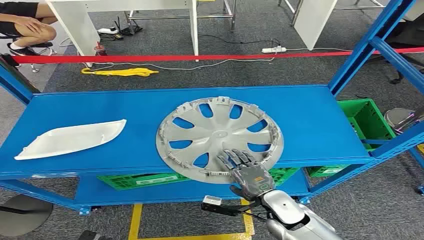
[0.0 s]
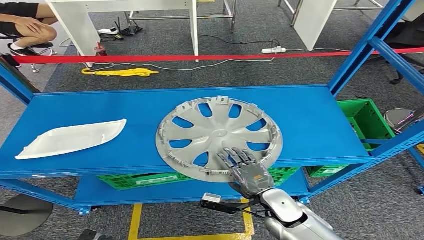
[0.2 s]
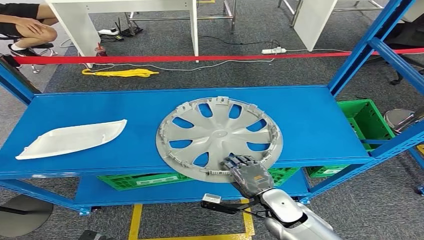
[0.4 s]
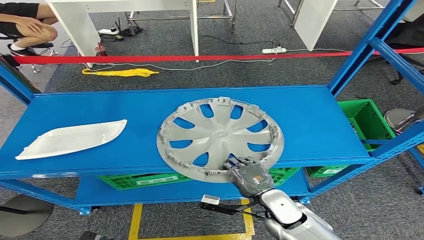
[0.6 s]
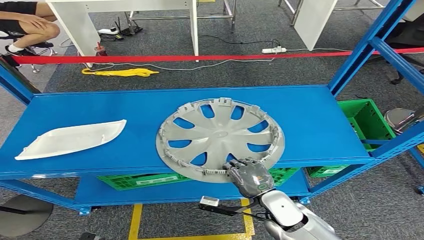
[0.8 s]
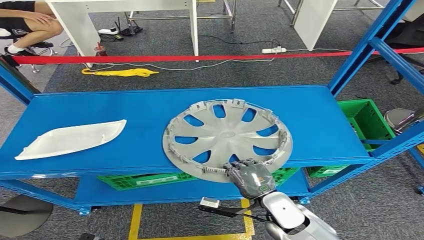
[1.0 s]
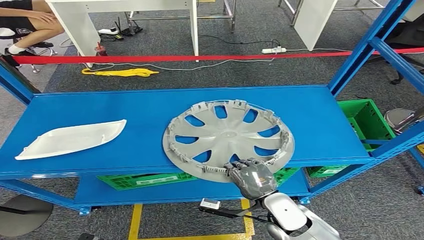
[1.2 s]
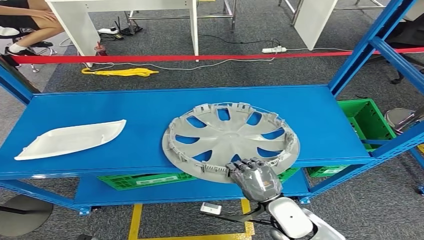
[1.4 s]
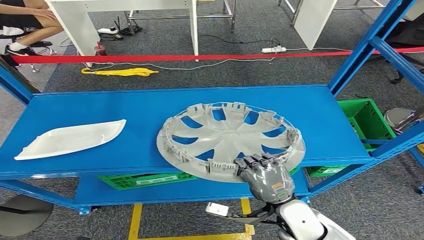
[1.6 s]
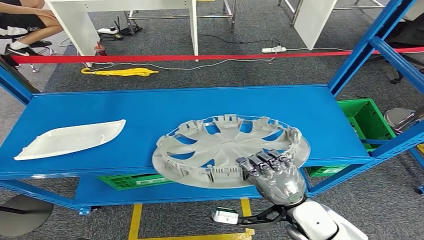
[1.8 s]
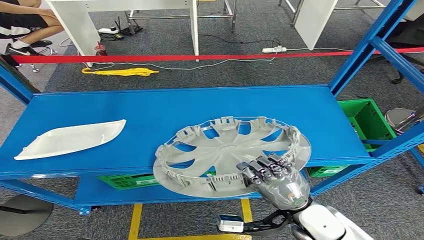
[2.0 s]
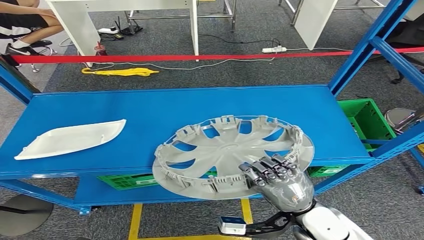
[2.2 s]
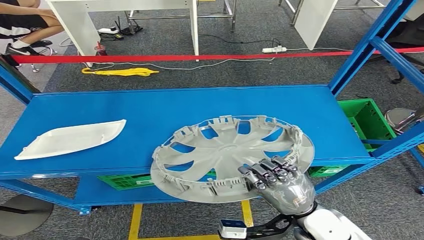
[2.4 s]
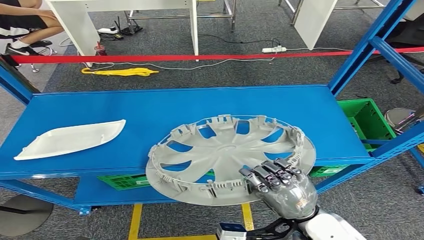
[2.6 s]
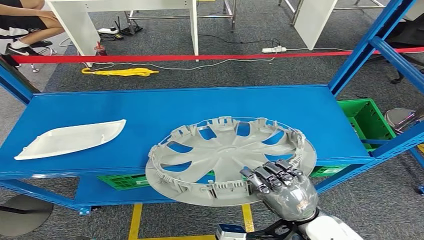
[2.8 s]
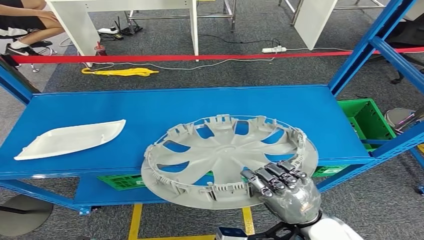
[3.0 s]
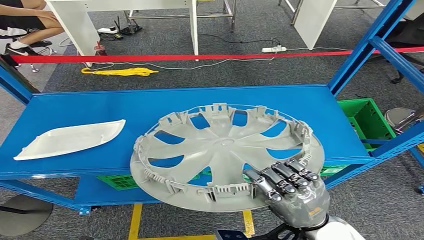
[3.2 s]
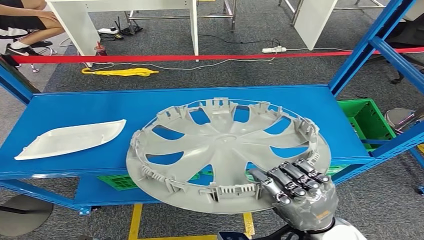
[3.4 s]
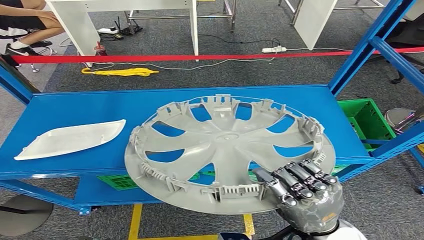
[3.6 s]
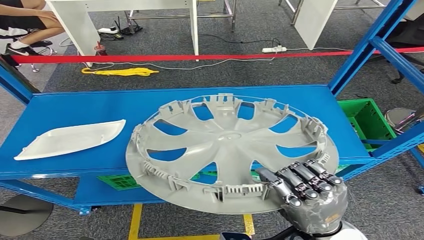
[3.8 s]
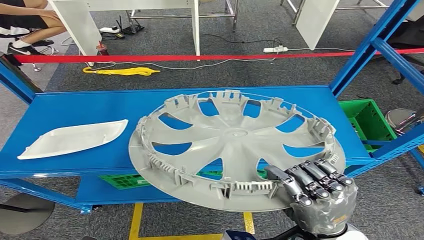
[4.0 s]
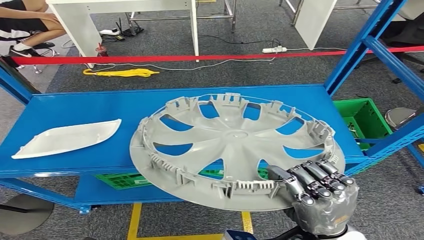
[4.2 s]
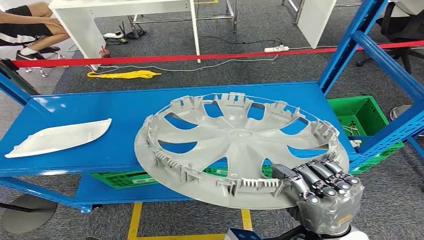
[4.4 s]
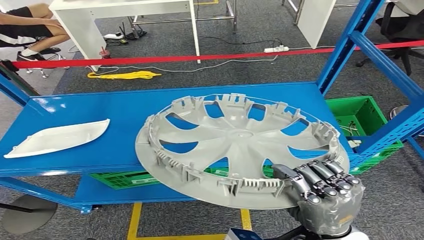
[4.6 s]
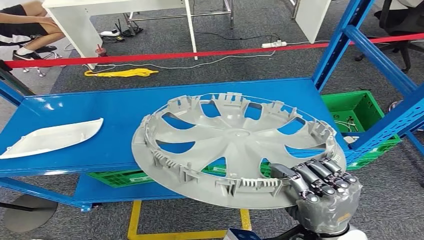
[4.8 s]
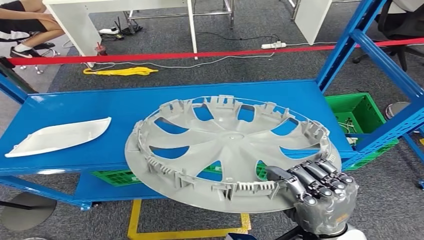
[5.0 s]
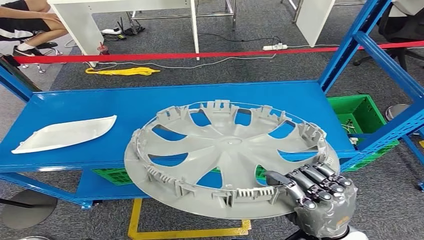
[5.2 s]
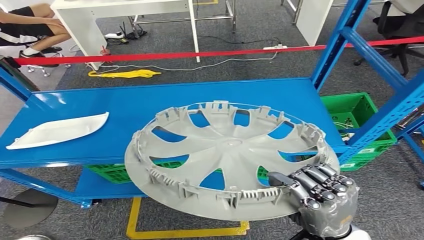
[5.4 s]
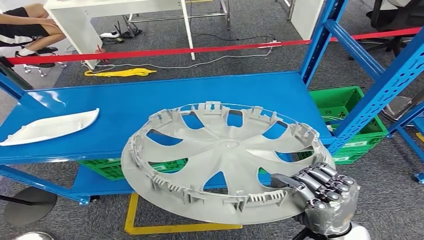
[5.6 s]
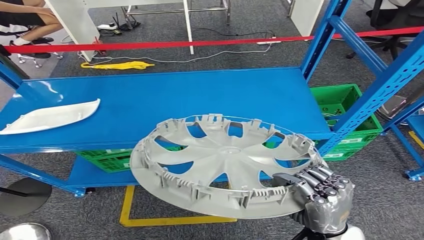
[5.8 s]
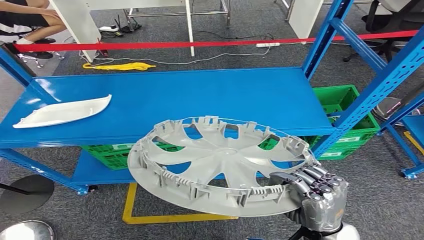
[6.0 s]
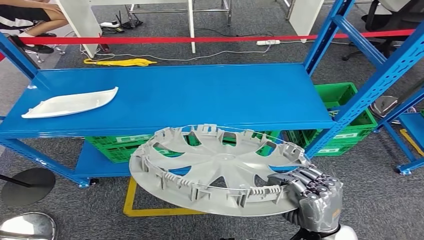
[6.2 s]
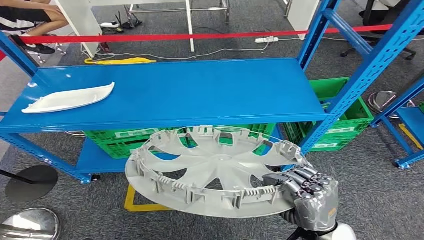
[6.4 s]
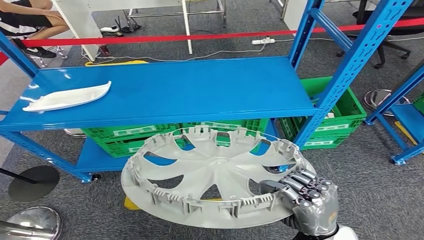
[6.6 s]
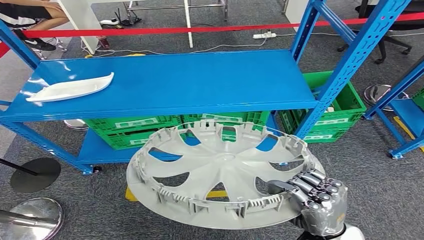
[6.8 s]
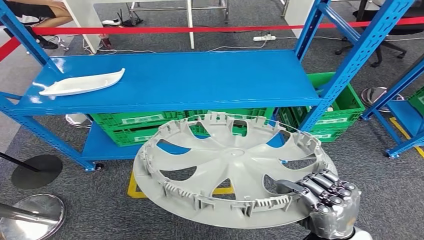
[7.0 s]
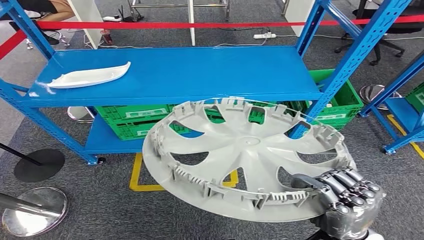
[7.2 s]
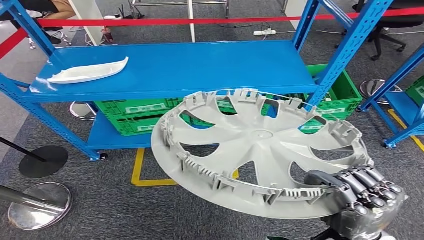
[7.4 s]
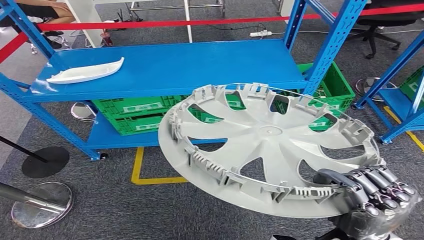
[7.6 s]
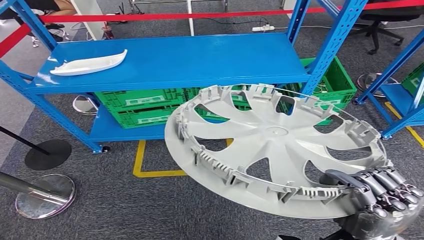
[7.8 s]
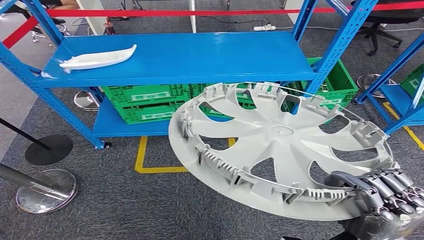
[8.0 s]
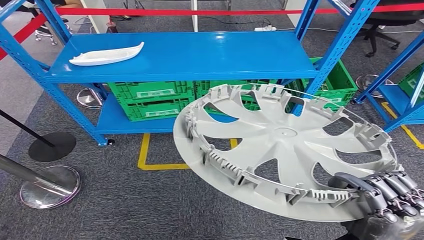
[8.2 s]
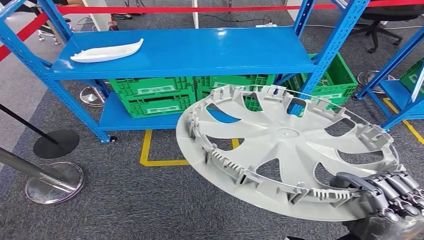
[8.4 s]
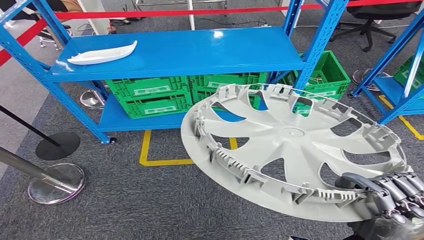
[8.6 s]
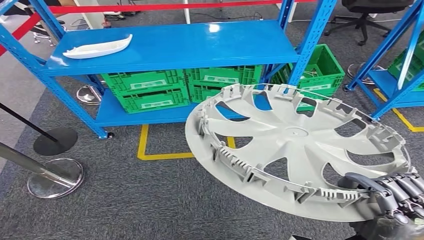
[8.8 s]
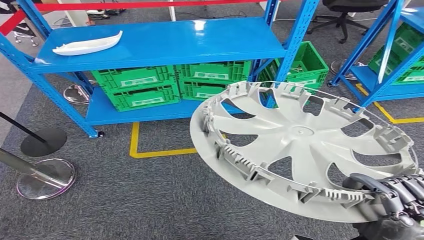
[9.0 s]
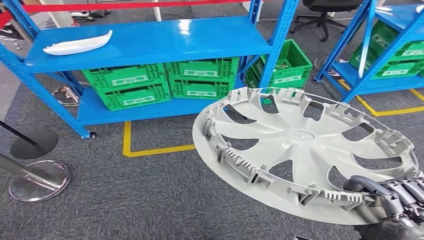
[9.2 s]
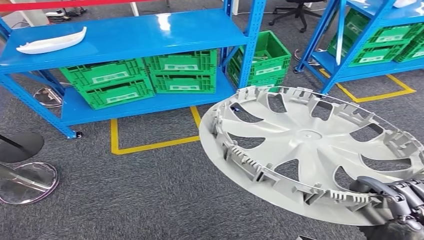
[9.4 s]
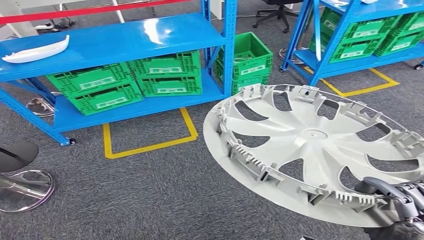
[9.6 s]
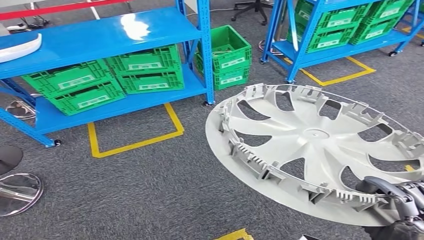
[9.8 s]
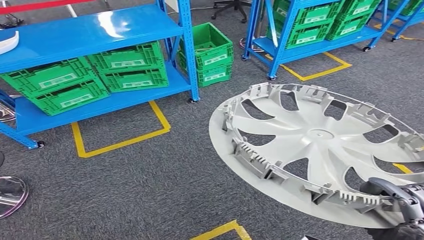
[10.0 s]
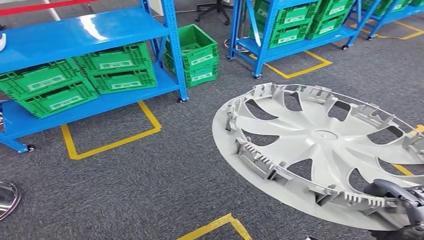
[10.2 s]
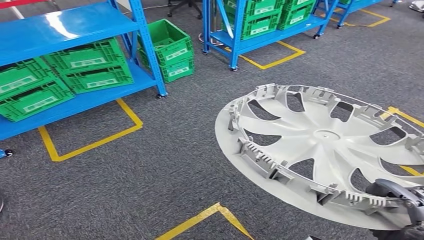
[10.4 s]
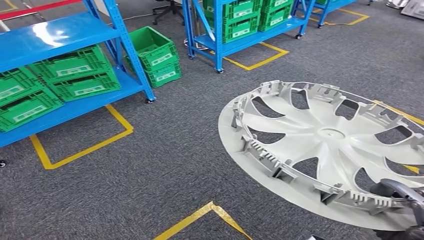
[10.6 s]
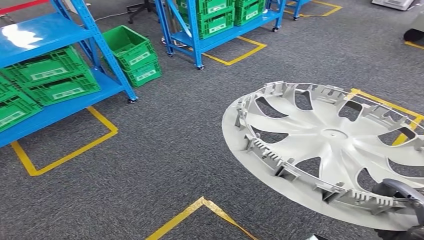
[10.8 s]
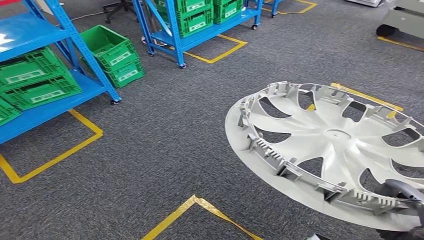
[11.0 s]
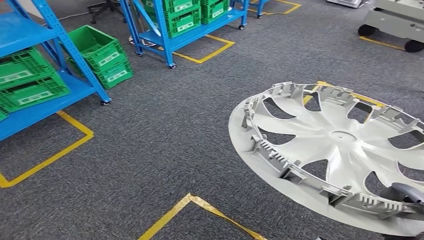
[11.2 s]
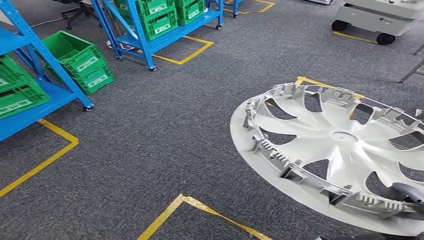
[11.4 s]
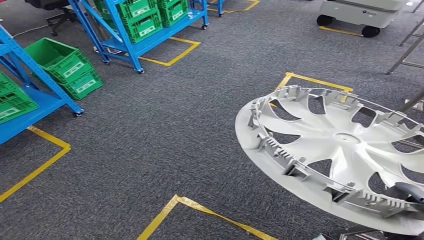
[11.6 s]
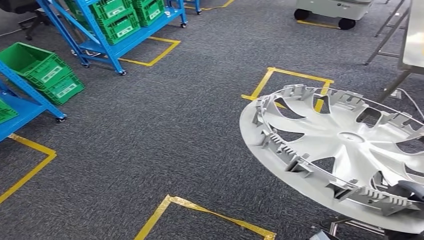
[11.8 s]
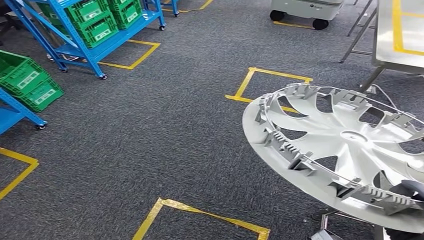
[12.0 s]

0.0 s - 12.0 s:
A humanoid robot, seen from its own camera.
Step, 0.0 s - 5.2 s: Take small components from the rack.
1.6 s - 3.0 s: The right hand changes place by about 5 cm.

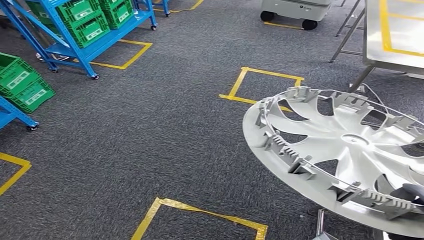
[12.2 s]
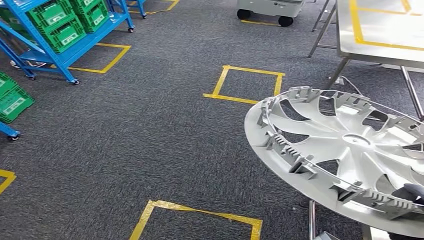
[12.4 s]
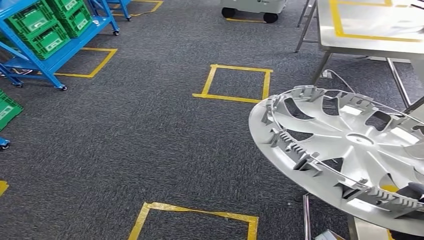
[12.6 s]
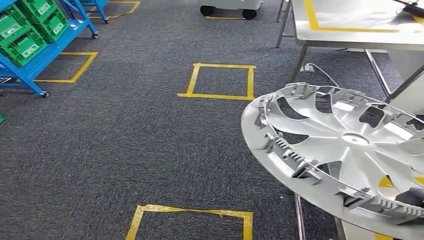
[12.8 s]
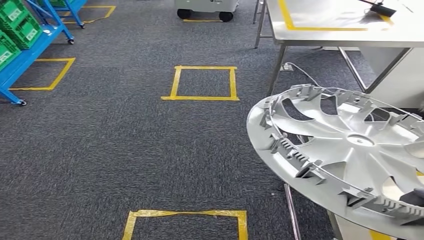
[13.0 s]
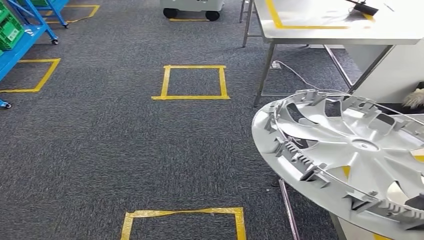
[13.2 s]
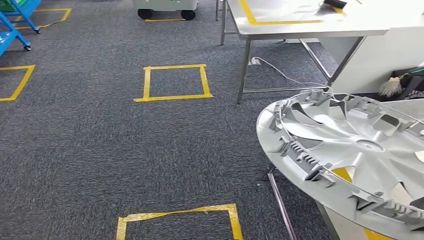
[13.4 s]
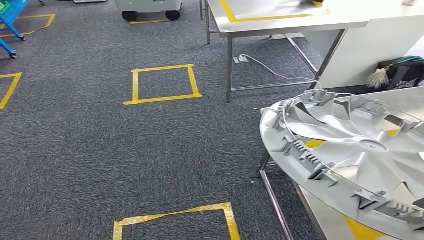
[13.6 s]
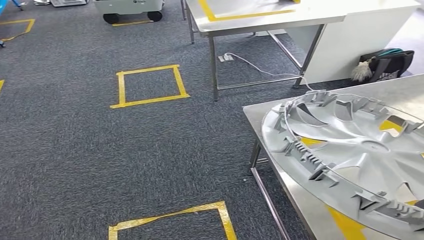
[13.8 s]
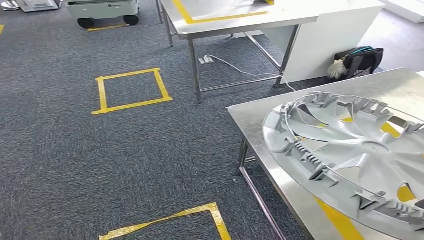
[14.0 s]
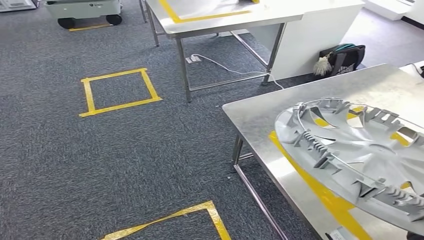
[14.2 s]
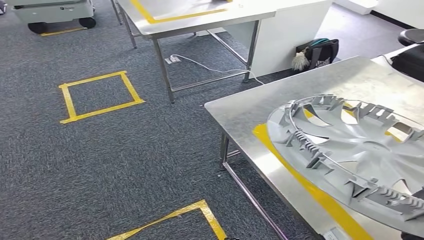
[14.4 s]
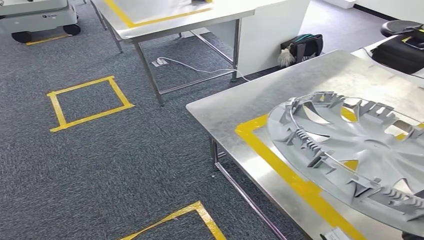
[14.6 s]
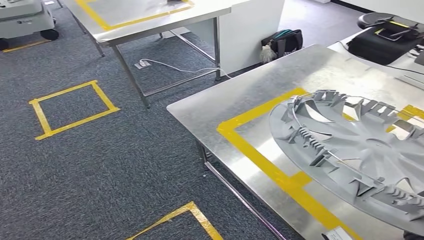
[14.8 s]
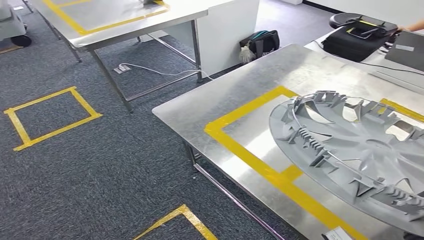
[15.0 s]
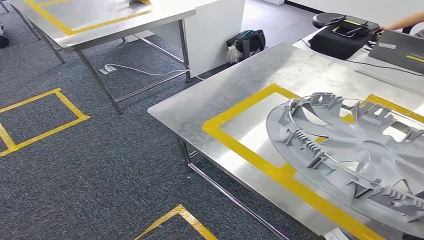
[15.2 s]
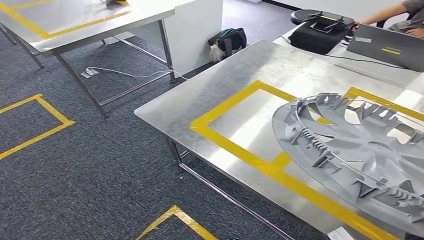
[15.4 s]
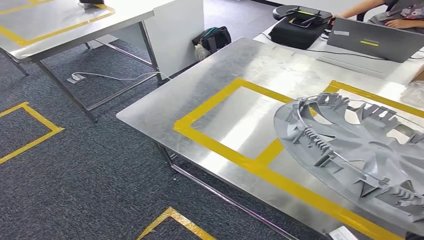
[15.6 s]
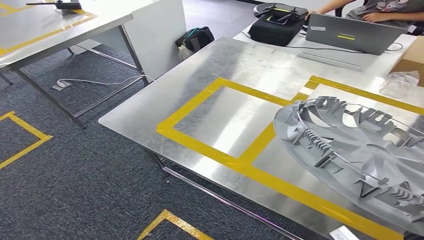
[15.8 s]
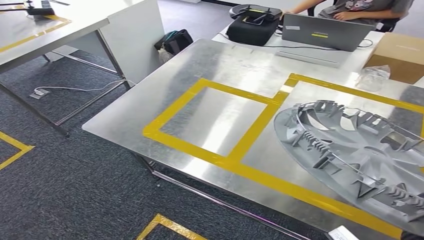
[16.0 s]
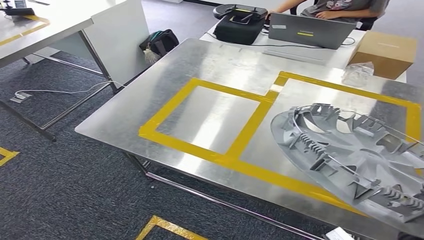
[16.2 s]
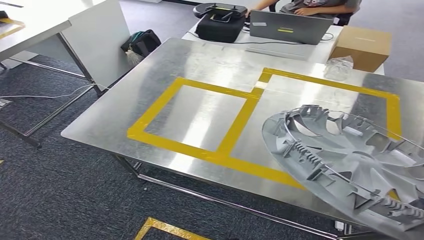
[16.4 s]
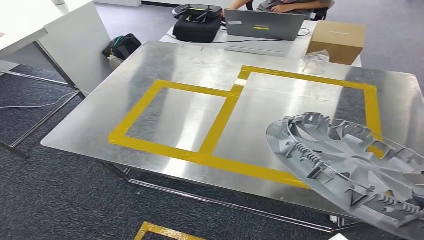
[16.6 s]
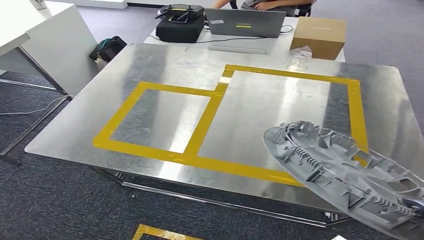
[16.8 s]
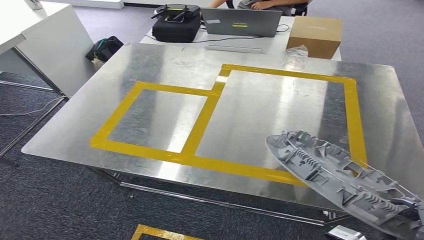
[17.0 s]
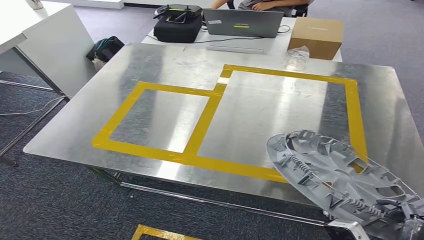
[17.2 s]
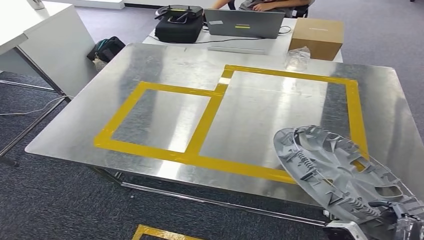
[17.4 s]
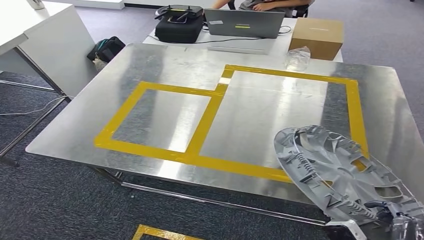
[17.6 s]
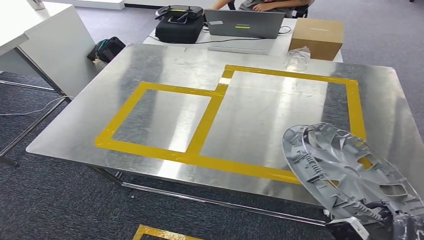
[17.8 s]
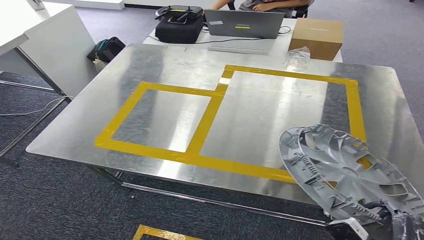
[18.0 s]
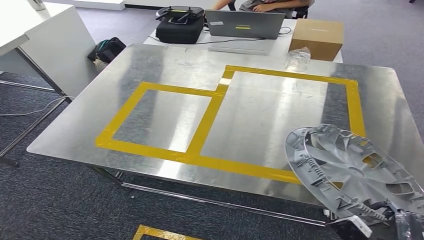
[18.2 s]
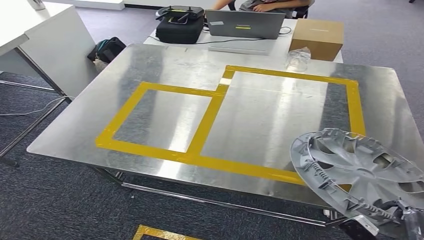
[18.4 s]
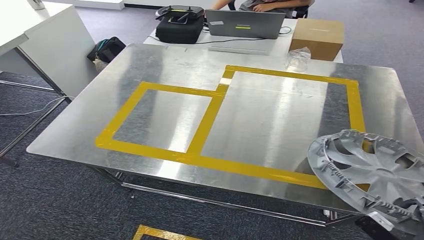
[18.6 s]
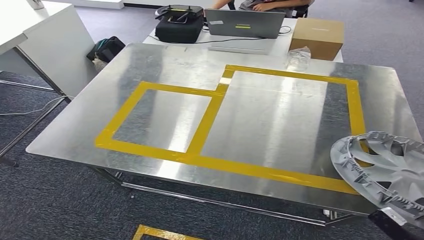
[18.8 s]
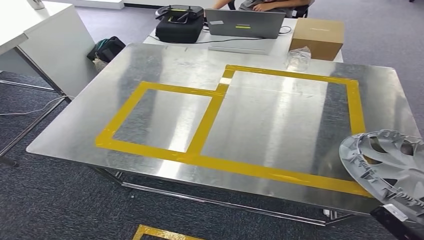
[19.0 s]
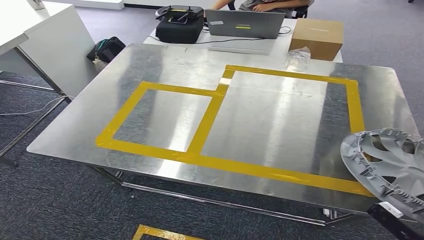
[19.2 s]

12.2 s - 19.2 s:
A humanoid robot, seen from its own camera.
Step, 12.2 s - 17.2 s: Move the small parts to the workbench.
17.8 s - 19.2 s: The right hand heads to the right, covering about 15 cm.
